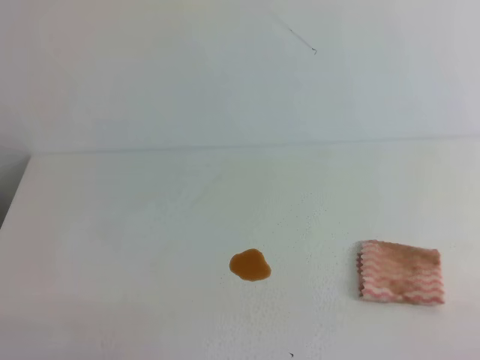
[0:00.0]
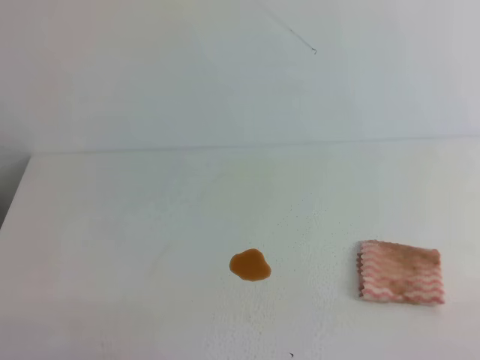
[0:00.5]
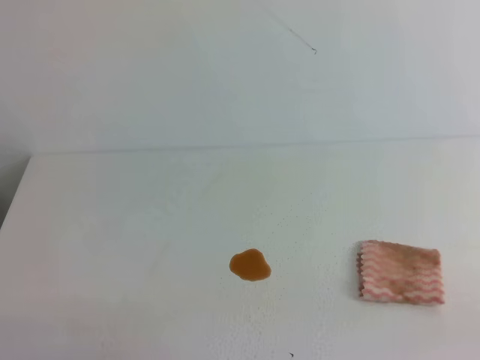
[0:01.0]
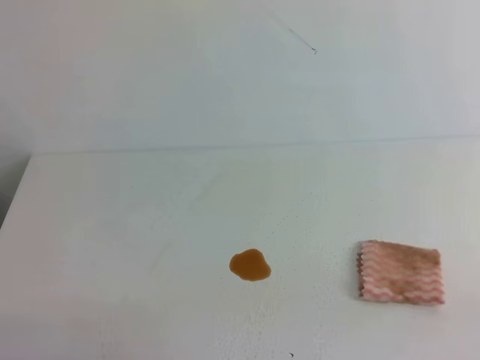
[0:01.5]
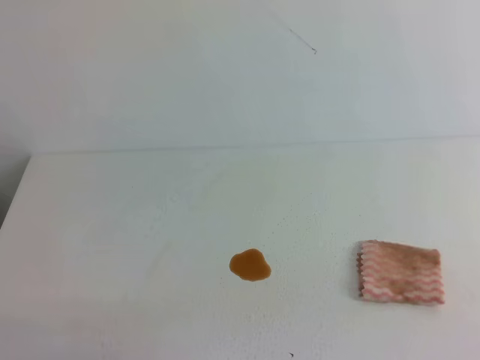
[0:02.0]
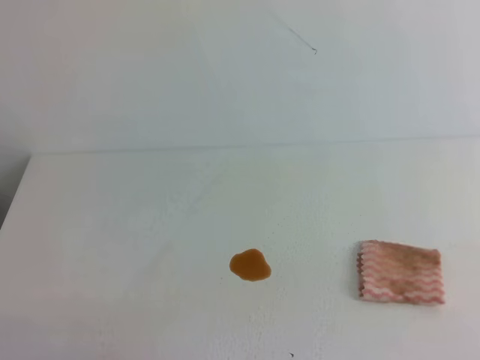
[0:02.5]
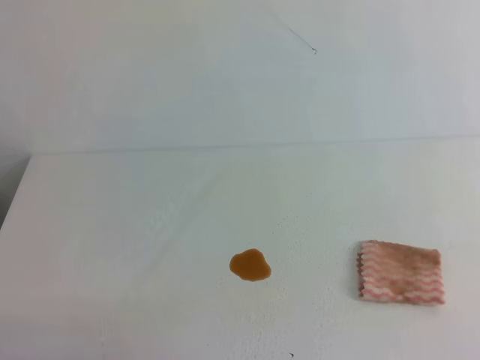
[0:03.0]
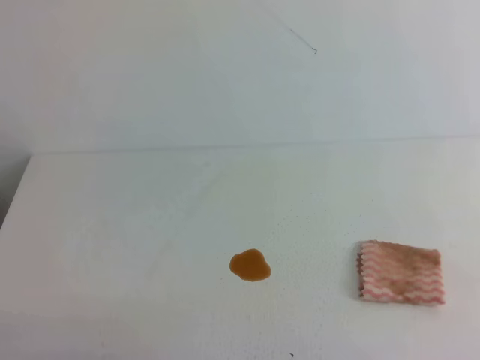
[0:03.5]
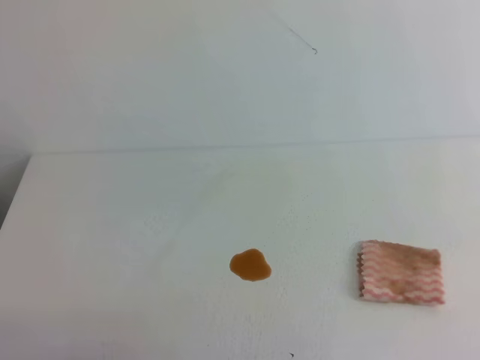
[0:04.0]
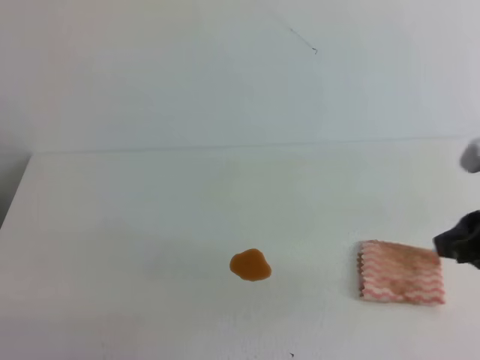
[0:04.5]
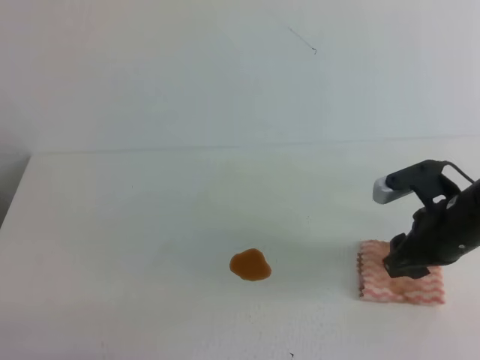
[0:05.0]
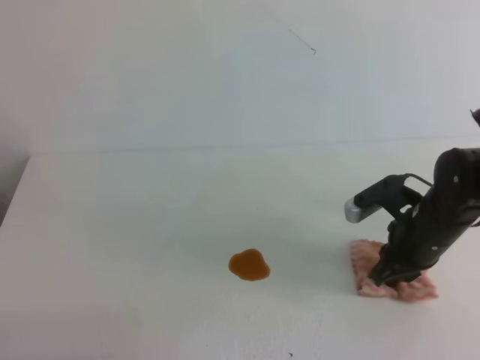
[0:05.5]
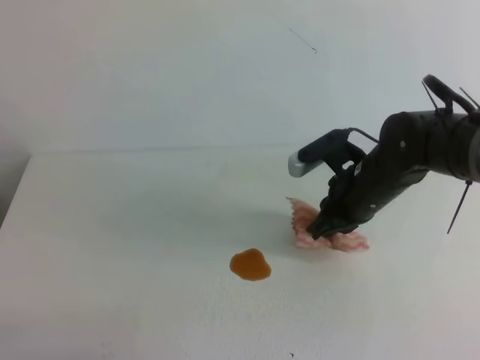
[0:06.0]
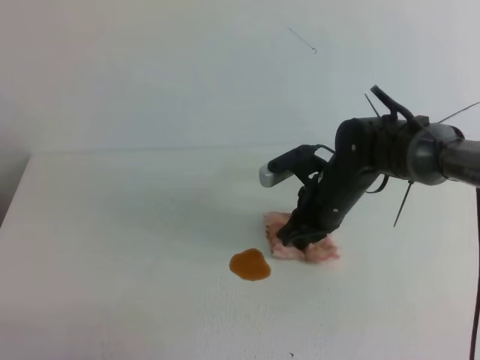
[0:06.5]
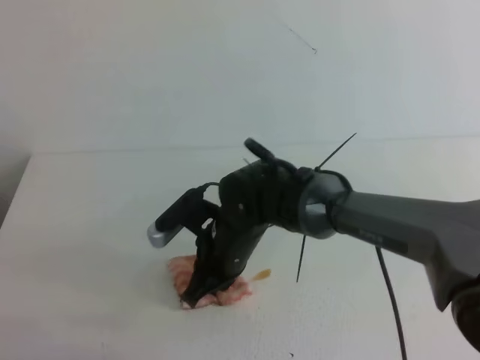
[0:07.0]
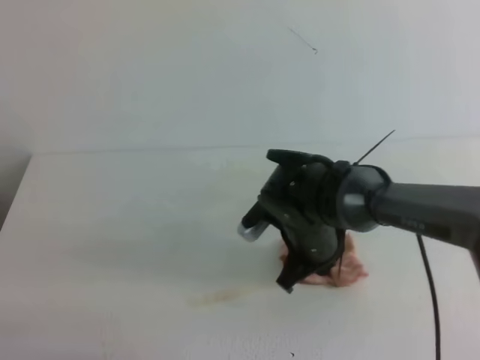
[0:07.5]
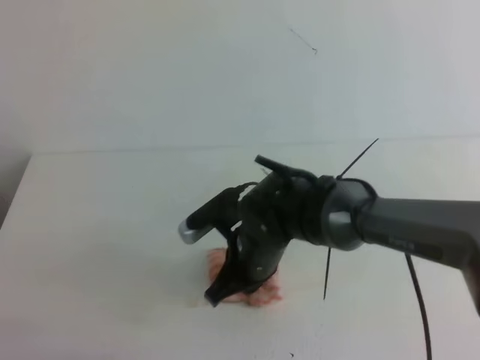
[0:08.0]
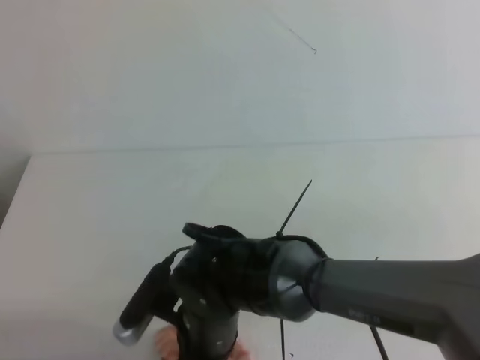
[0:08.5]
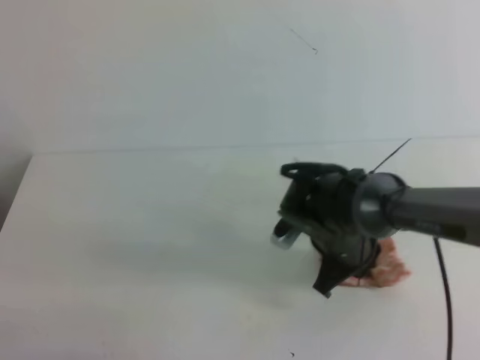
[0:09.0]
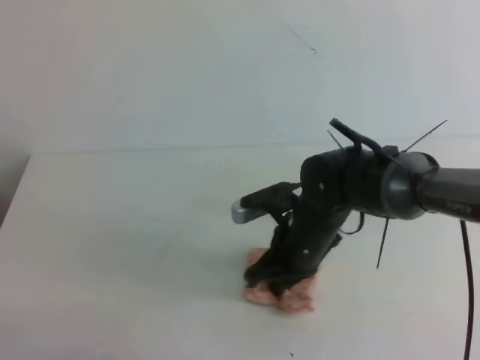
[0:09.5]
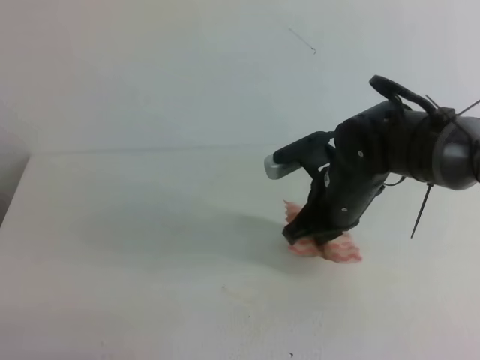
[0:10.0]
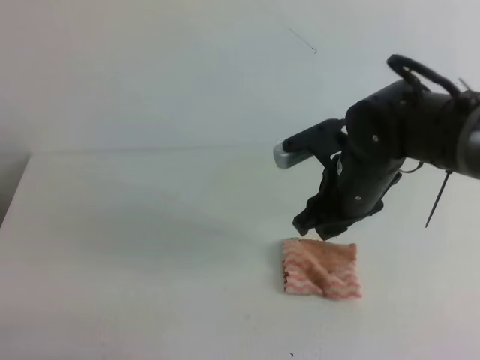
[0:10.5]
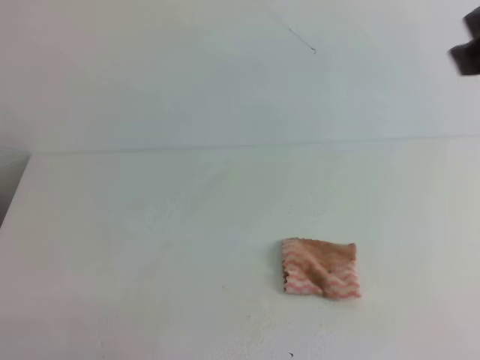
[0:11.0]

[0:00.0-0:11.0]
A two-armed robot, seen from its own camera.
0:03.5 to 0:05.5: The right gripper travels forward, downward and to the left by roughly 30 cm, and opens, then closes once more.
0:05.5 to 0:07.5: The right gripper travels to the left by about 15 cm.
0:07.5 to 0:09.0: The right gripper reaches roughly 10 cm to the left, then returns.
0:09.0 to 0:11.0: The right gripper travels upward by approximately 35 cm, and opens and closes again.
